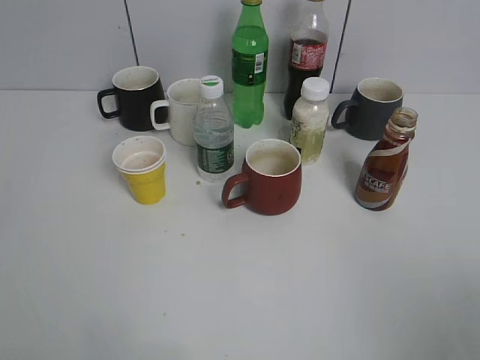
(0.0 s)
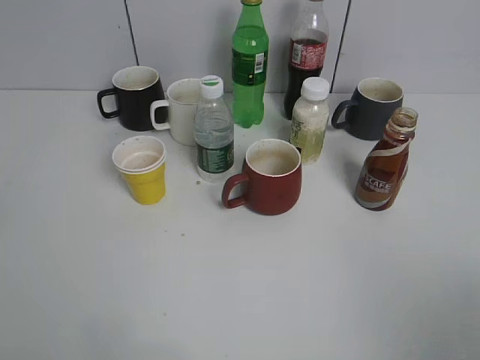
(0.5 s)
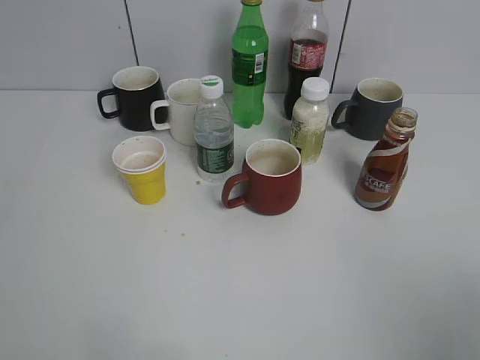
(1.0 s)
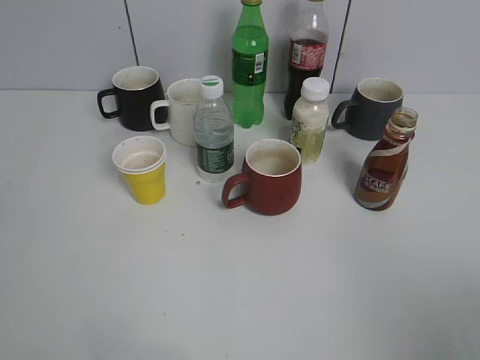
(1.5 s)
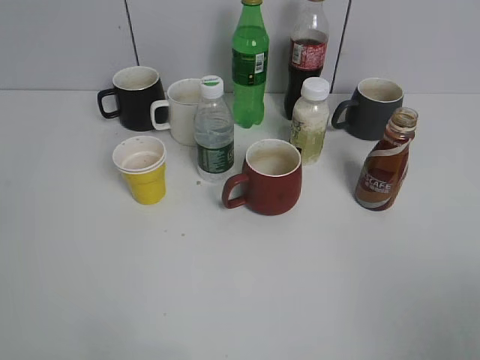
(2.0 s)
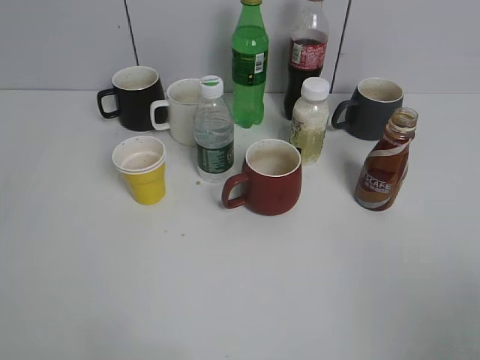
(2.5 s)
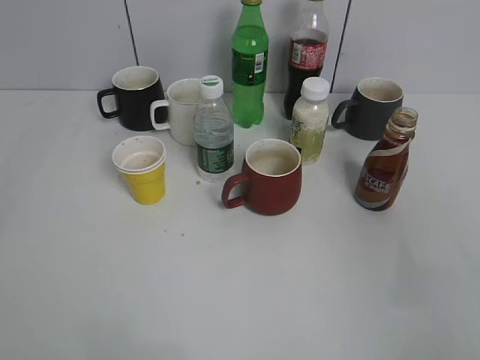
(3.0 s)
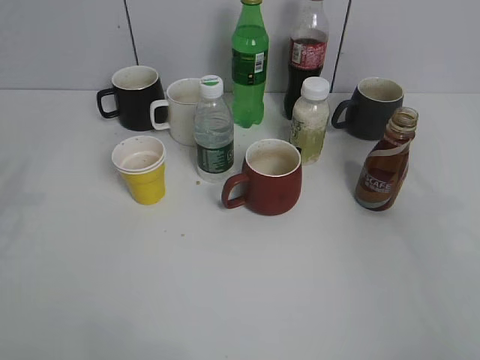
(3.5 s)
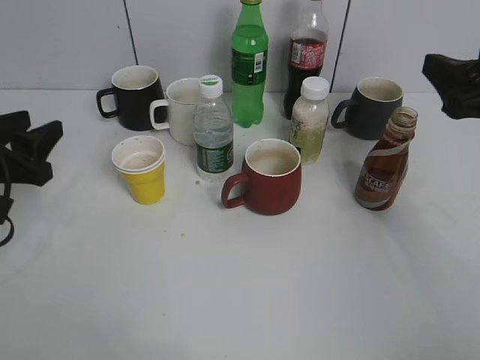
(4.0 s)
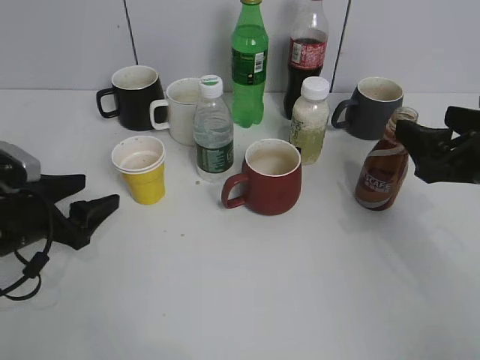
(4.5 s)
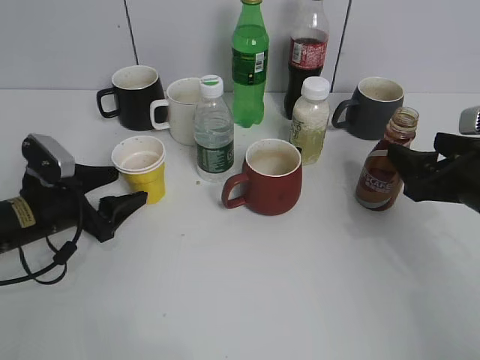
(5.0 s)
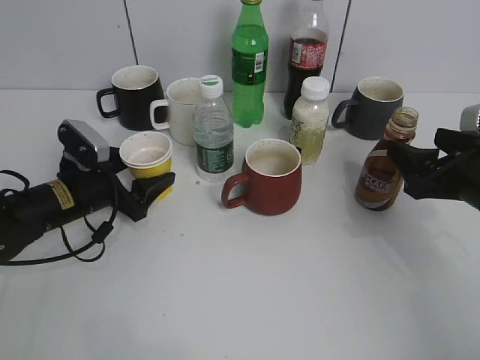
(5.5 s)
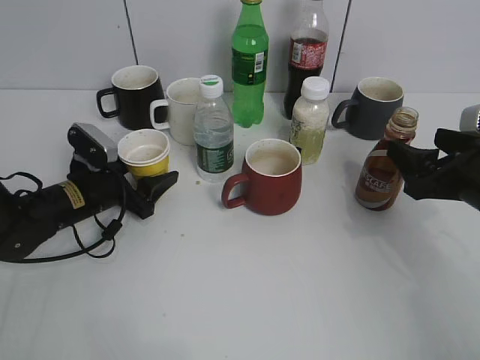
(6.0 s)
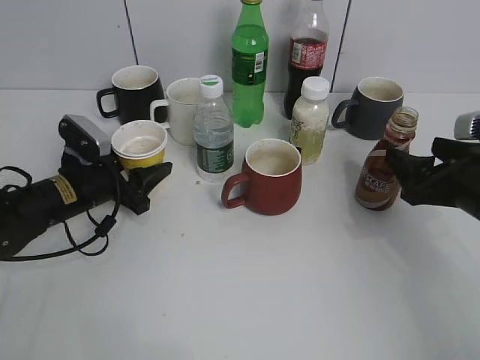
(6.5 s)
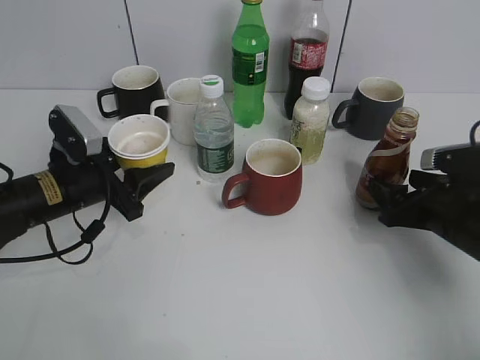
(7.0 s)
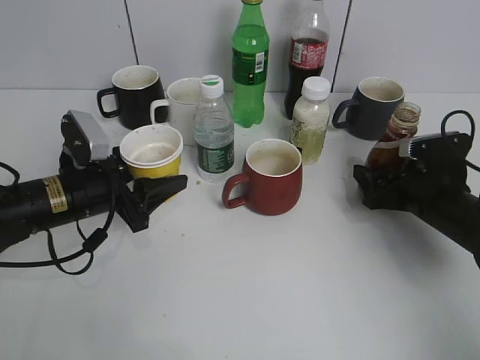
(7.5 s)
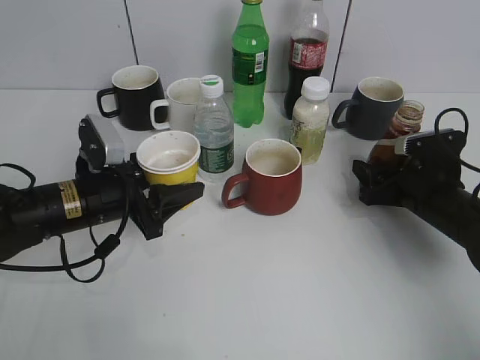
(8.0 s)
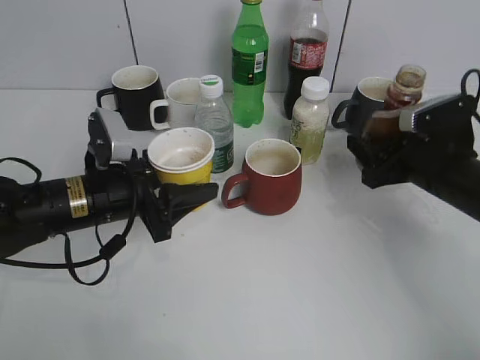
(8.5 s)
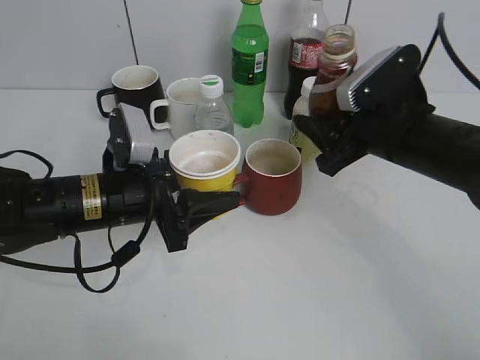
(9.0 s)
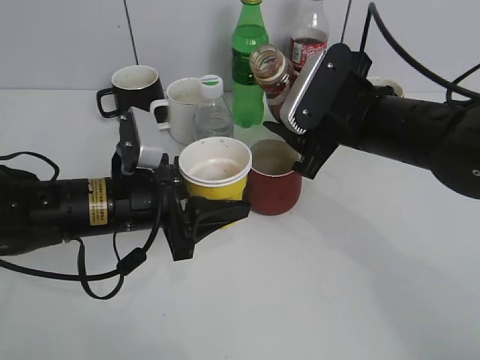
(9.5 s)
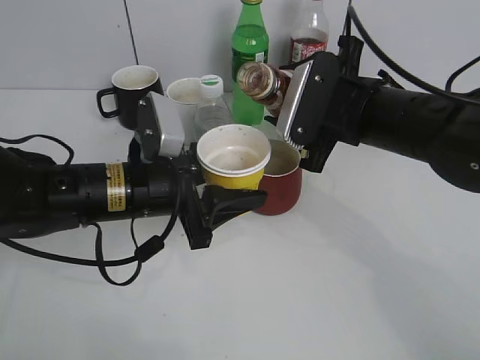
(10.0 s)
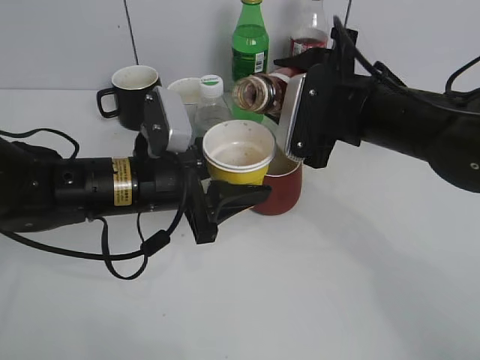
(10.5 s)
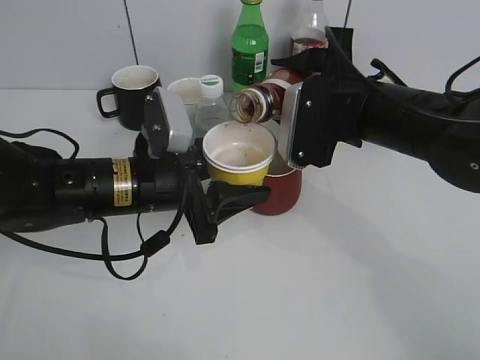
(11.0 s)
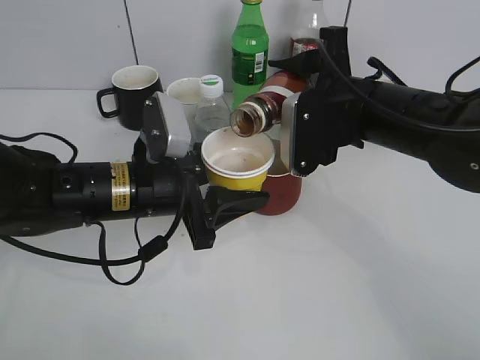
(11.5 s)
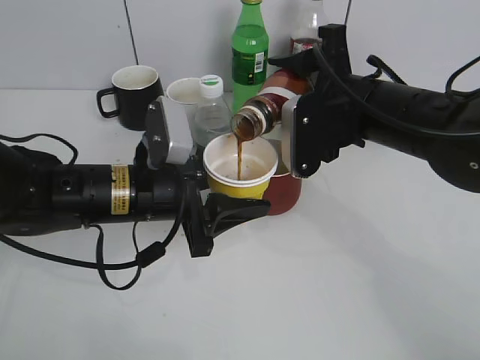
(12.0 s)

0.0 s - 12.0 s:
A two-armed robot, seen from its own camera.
Step, 2.5 s - 6.0 s: Grasp the yellow paper cup with left gripper.
Step, 6.5 s - 8.0 s: Grasp the bottle with coffee with right gripper.
2.0 s - 4.0 s: The left gripper shifts some 30 cm forward and downward, and opens up. The right gripper heads forward, covering approximately 25 cm.
4.0 s - 6.0 s: The left gripper heads downward, forward and to the right, covering roughly 15 cm, and opens, while the right gripper travels downward by approximately 10 cm.
6.0 s - 8.0 s: The right gripper moves downward and forward, about 10 cm, and closes its fingers. The left gripper is displaced backward and upward by about 5 cm, and closes up.
8.0 s - 10.0 s: The right gripper shifts approximately 20 cm upward and to the left; the left gripper moves to the right, roughly 5 cm.

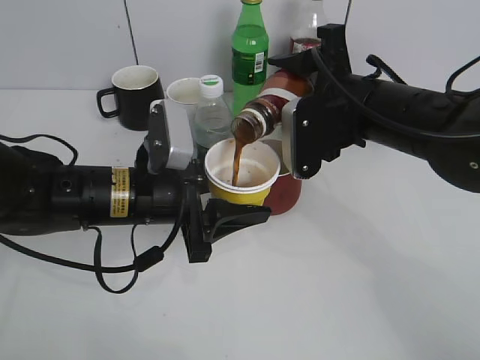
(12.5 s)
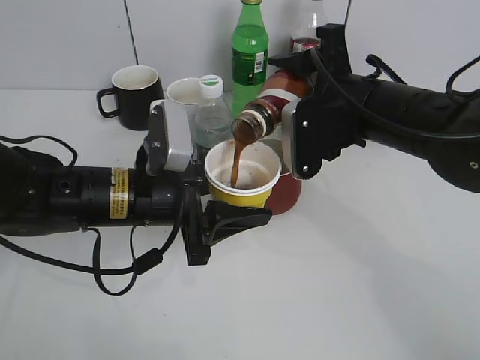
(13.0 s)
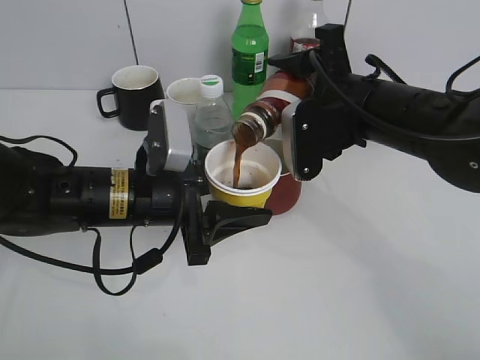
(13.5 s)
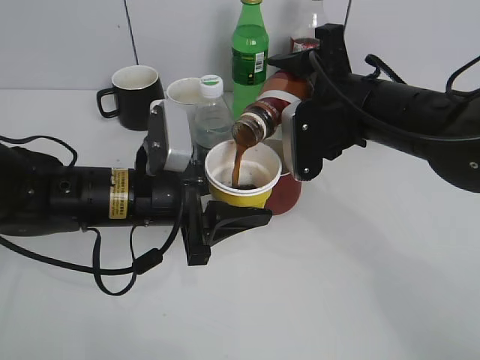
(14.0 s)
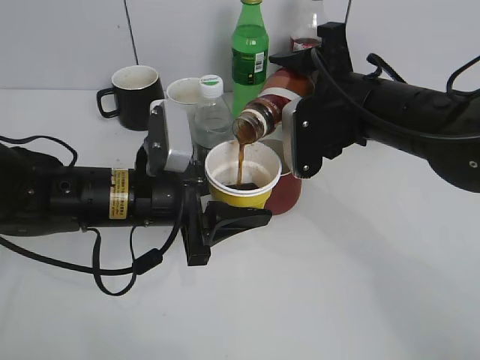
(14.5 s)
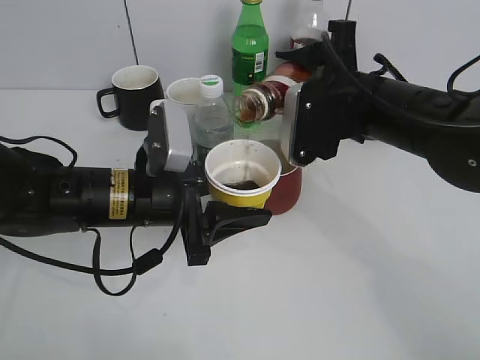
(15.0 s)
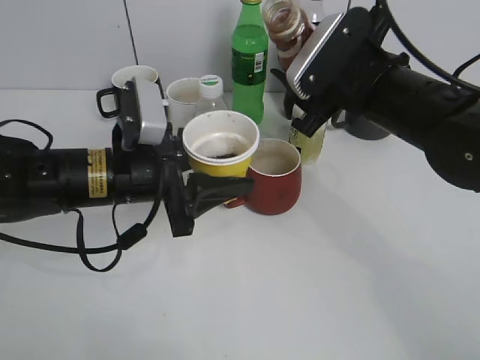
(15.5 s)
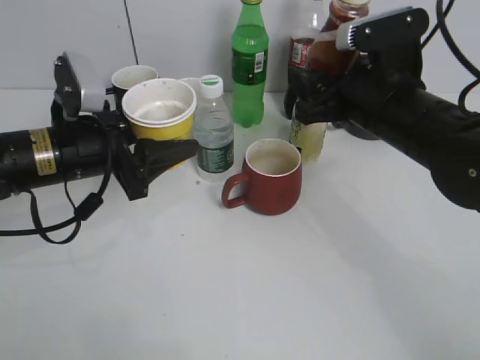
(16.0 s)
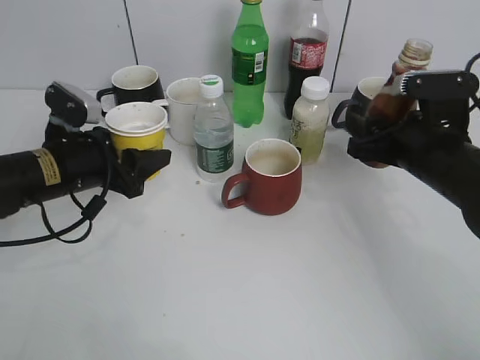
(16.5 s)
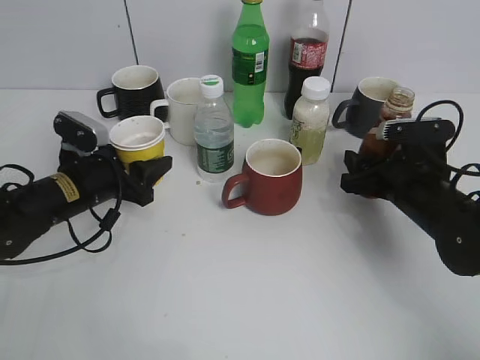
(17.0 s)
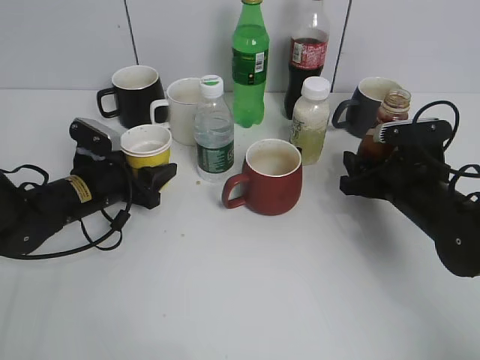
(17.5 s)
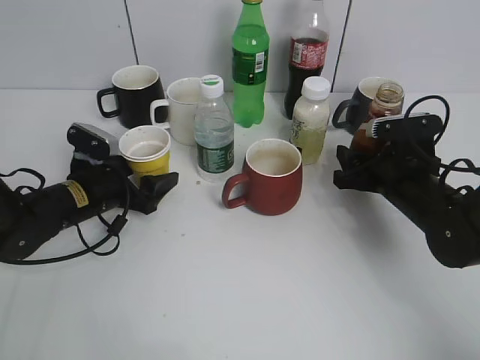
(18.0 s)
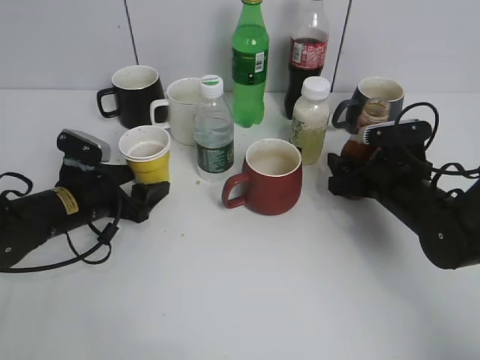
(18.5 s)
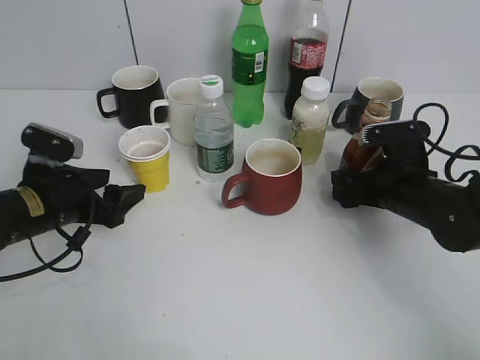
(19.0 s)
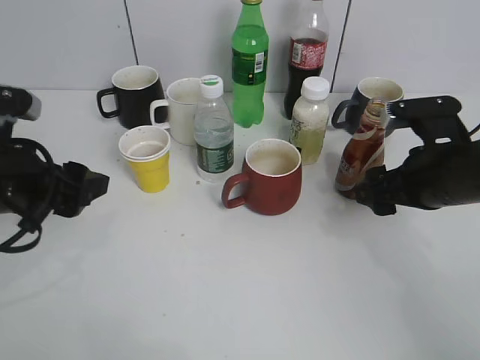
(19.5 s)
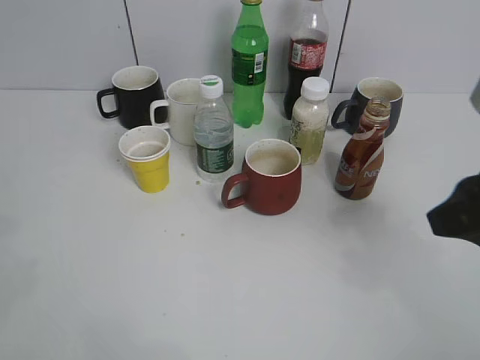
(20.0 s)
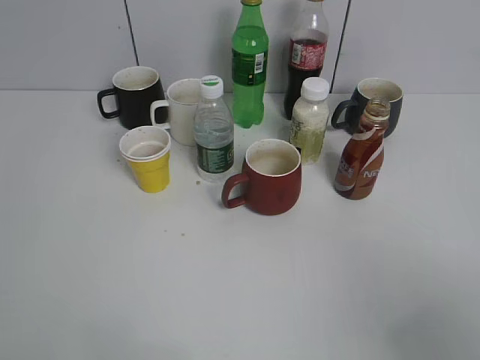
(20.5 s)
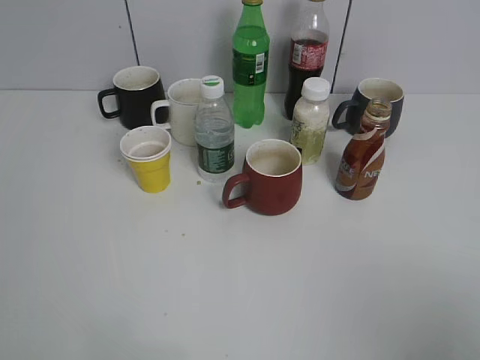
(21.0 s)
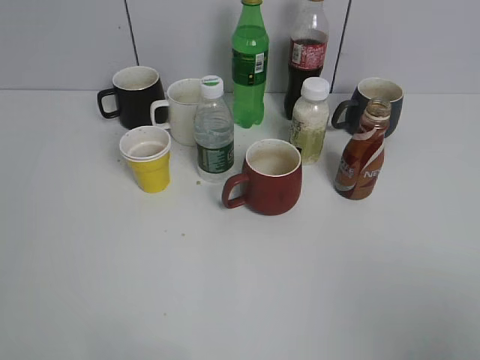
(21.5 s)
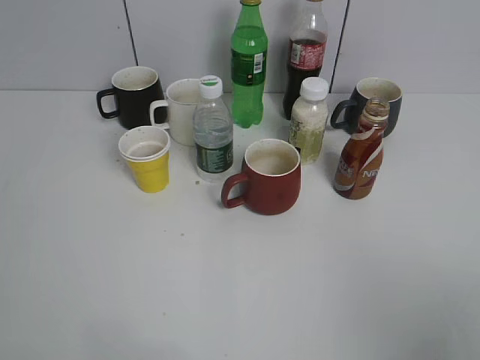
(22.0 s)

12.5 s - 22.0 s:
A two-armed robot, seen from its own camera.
Step, 12.5 s - 15.5 s: Pour the coffee from bottle to cup with right gripper.
Step, 16.0 s - 19.0 s: Place the coffee bottle on the table with right gripper.
12.5 s - 14.5 s: Both grippers stay put.
14.5 s - 16.5 s: The right gripper goes roughly 10 cm to the right and downward. Meanwhile the left gripper goes some 10 cm to the left and forward.
16.5 s - 18.0 s: Both grippers move downward, roughly 10 cm. The left gripper opens up.
18.0 s - 20.0 s: Both grippers travel together upward and backward, about 25 cm. The right gripper opens.
20.0 s - 22.0 s: The right gripper shifts some 20 cm backward.

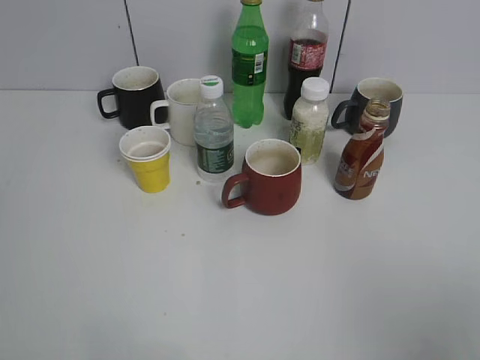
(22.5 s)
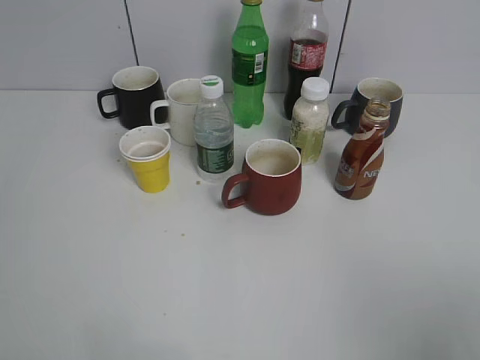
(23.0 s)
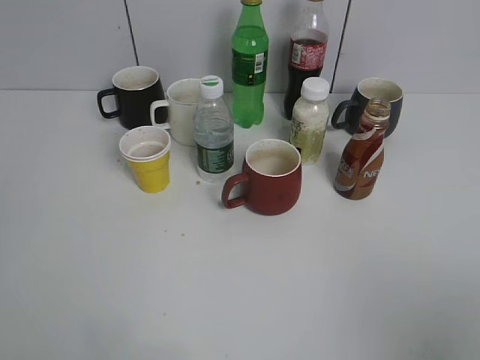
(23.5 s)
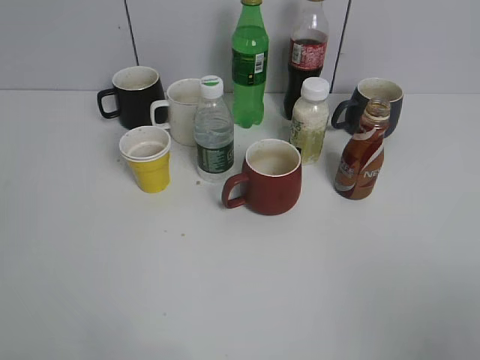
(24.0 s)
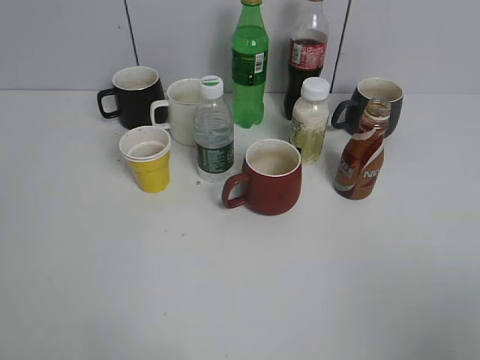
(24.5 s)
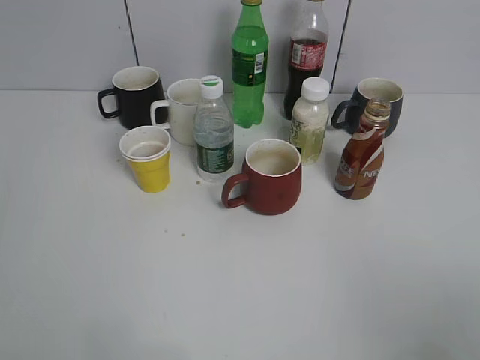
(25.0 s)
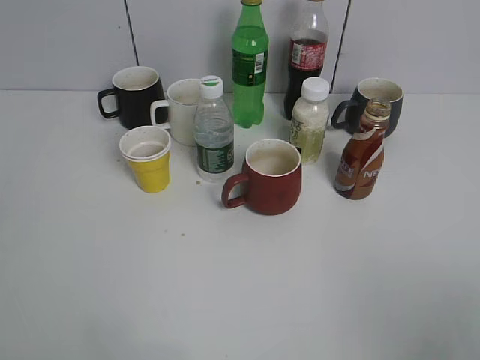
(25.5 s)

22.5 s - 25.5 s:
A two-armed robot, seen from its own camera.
22.5 s - 24.0 s: Both grippers stay put.

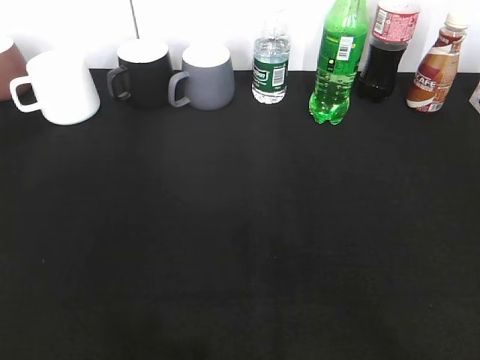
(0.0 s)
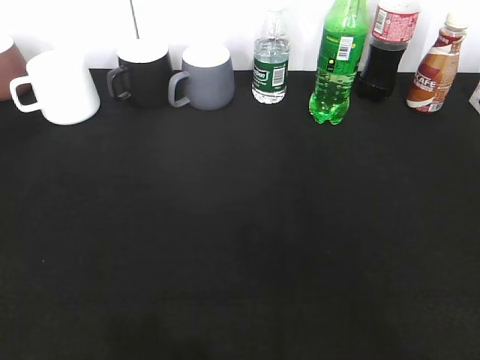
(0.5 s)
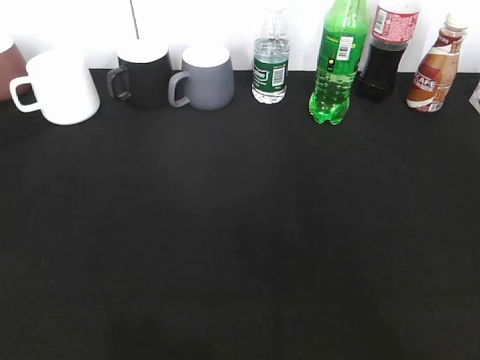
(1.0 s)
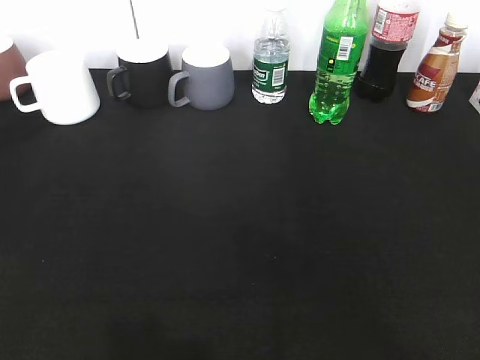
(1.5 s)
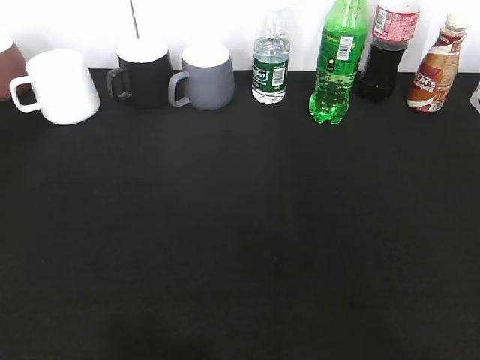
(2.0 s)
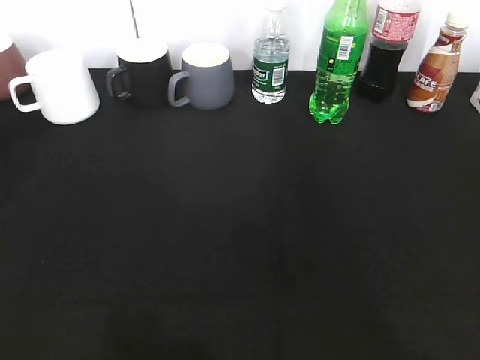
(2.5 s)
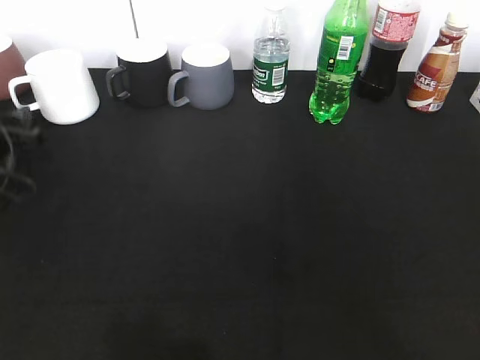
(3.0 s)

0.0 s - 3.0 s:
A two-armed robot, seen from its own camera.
0.0 s - 1.5 s: Neither gripper changes place.
1.5 s - 3.0 s: The left gripper travels forward and downward by some 40 cm, and closes and opens again.
